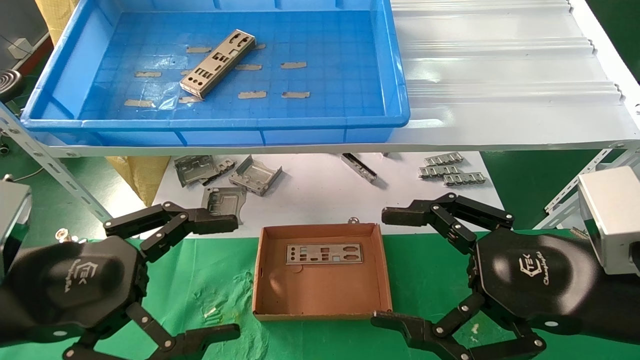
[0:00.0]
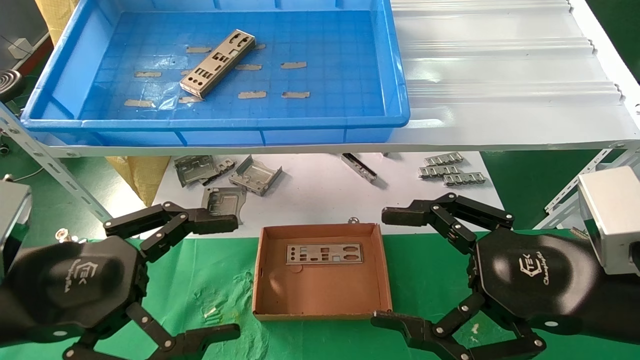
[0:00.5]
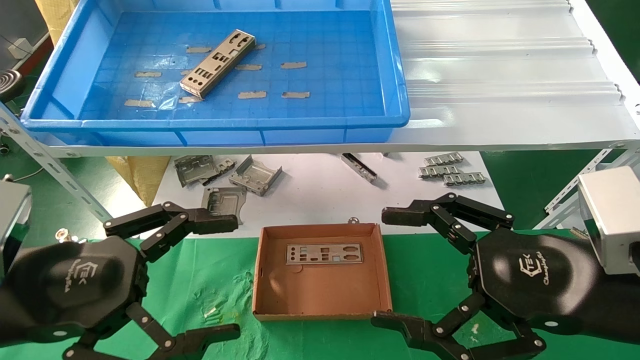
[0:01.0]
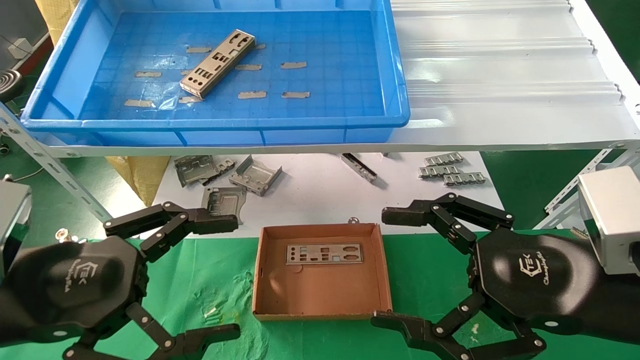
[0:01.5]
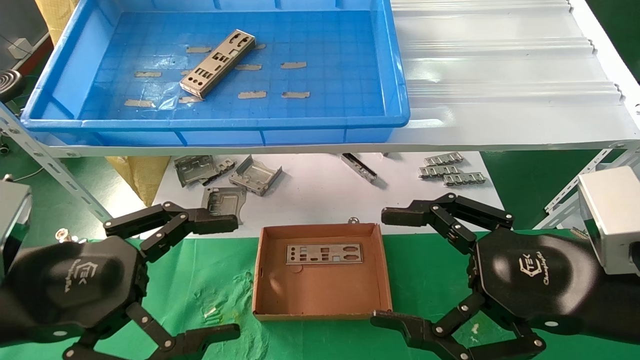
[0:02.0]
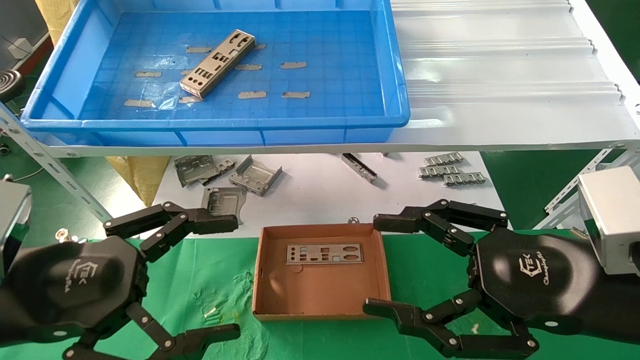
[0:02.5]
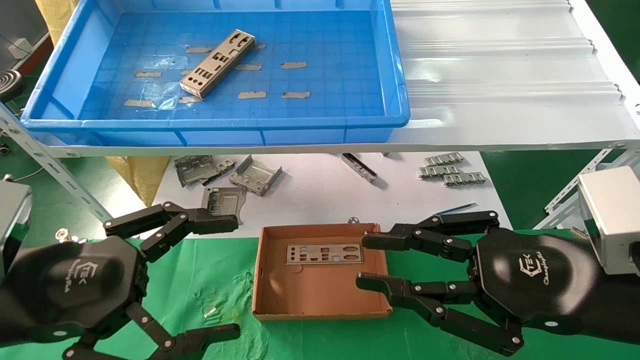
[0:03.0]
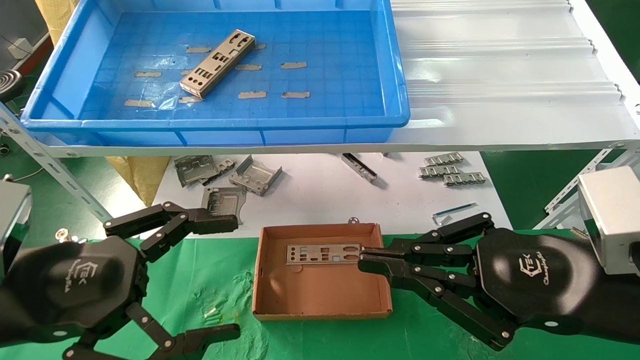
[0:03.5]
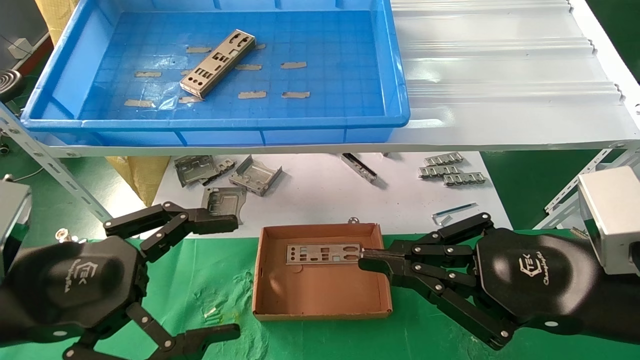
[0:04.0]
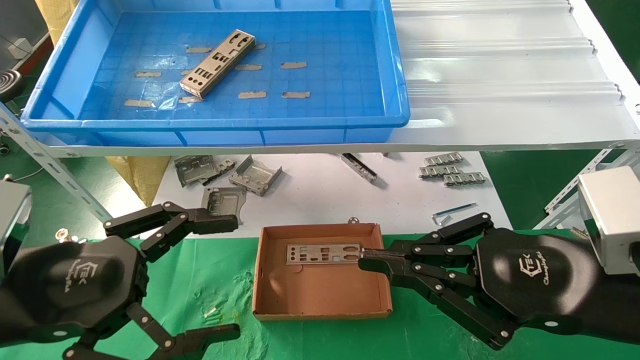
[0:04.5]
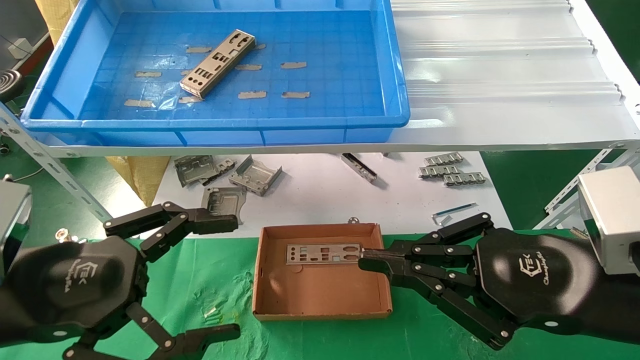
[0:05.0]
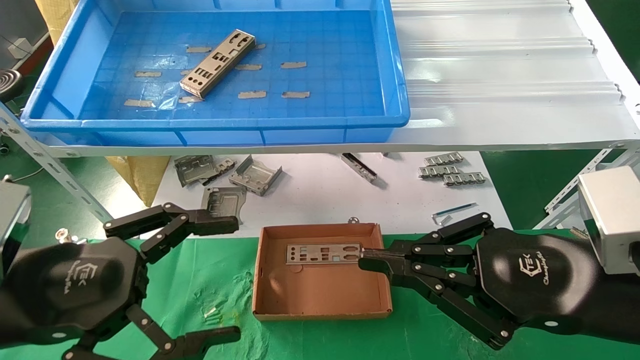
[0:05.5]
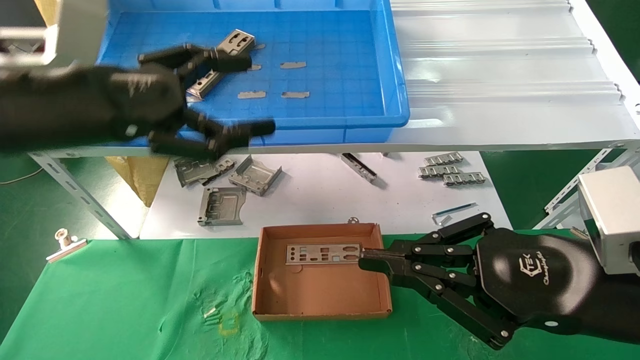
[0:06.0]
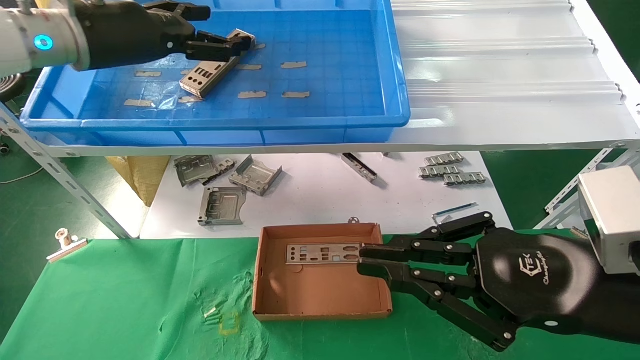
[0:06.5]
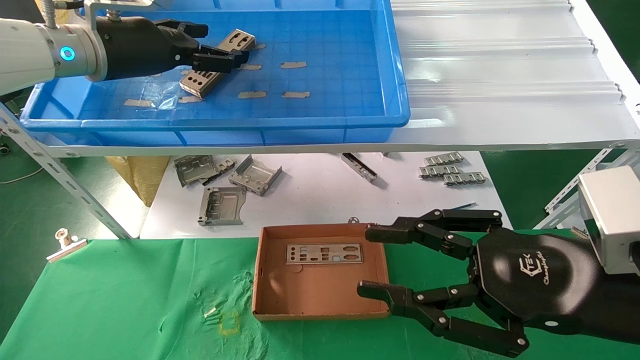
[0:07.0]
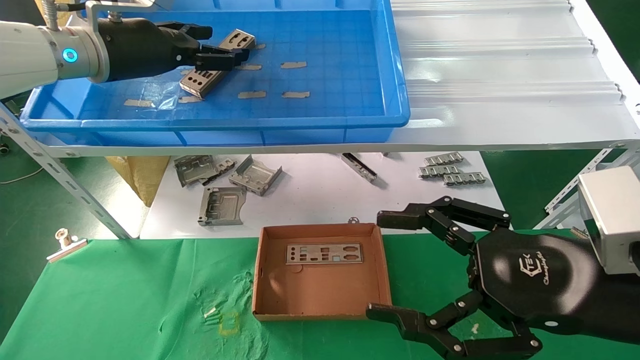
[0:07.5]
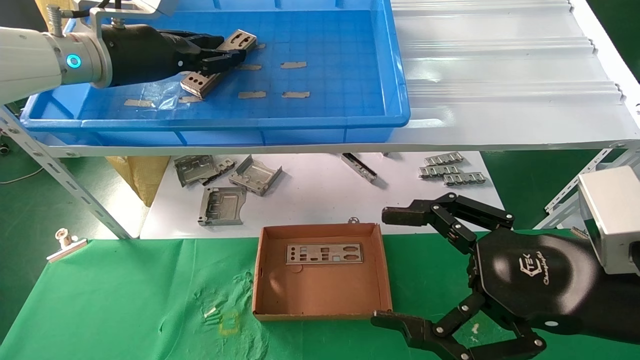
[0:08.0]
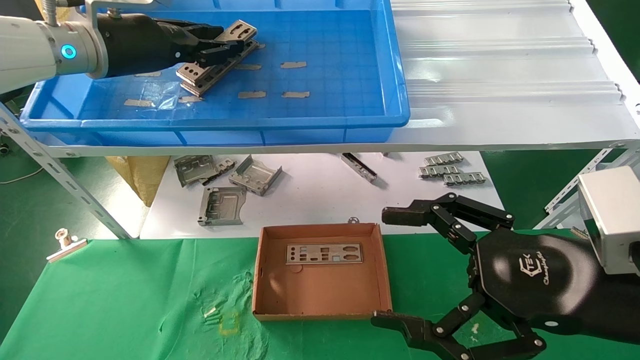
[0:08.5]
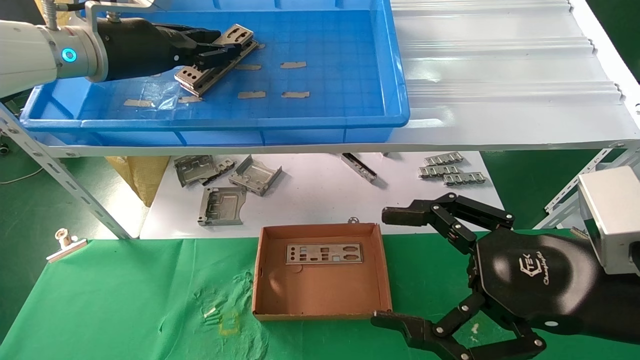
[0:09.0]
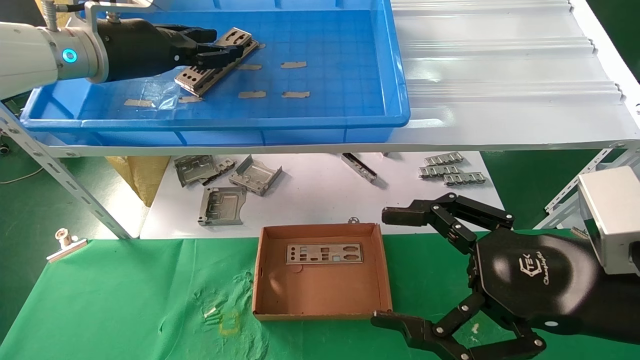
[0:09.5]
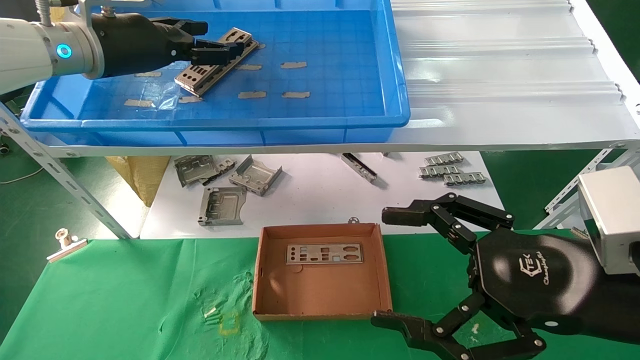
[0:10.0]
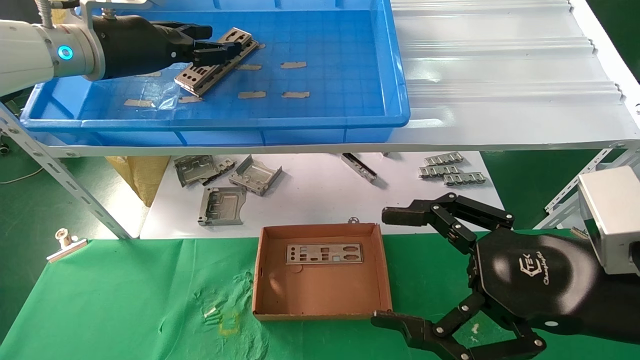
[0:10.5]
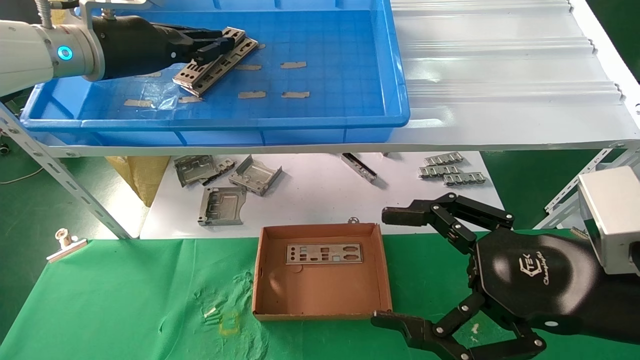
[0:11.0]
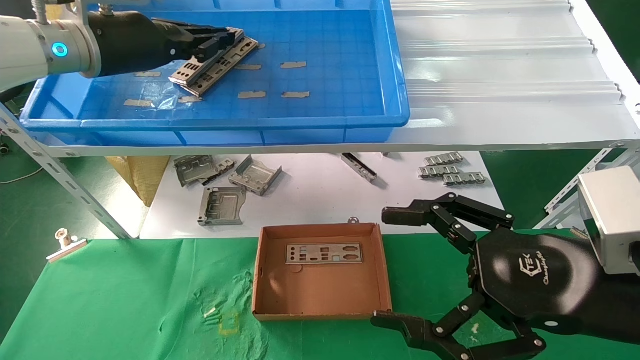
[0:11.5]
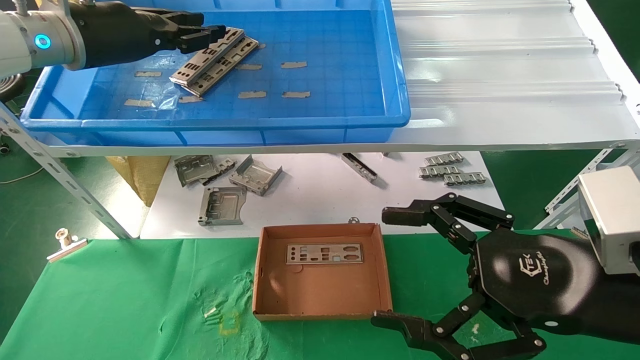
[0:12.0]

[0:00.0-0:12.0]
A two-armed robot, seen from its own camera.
Task of the whole recording: pick up the parts on the tray and put them in the cardboard box.
Step, 0:03.5 to 0:05.5: Pick up the IO bracket from the container box.
Step, 0:06.0 to 0:08.5: Place the IO bracket into the ingredient slot.
0:00.0 to 0:02.0: Neither gripper changes place.
0:02.0 to 0:04.0: The right gripper closes up.
0:04.0 to 0:06.0: The left gripper shifts approximately 15 cm upward and forward.
0:06.0 to 0:08.0: The left gripper travels forward by some 15 cm, and closes. Meanwhile the right gripper opens.
0:08.0 to 0:10.0: The two grippers keep their place.
0:10.0 to 0:12.0: The left gripper closes up.

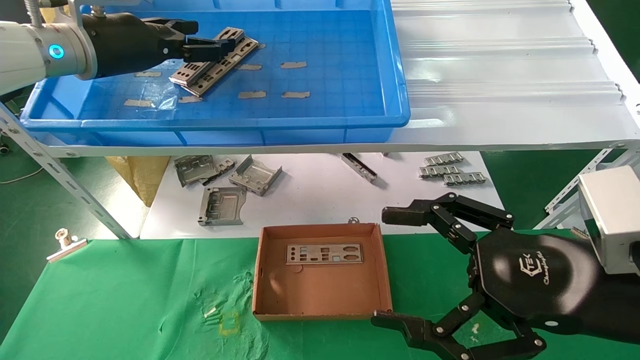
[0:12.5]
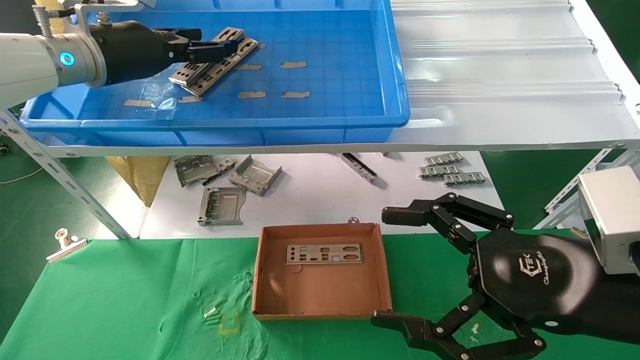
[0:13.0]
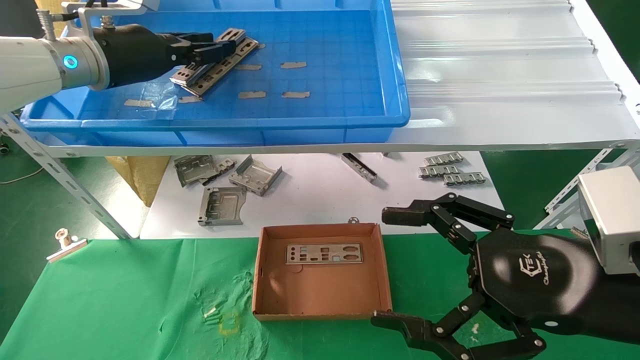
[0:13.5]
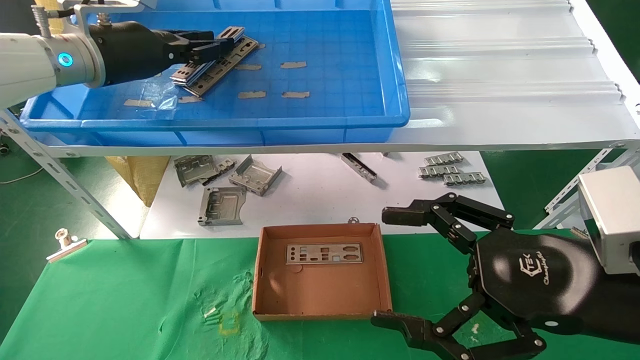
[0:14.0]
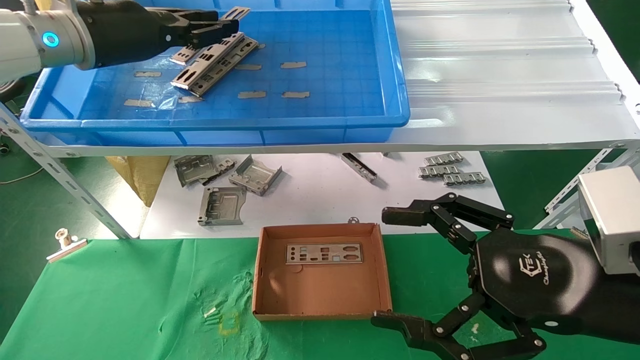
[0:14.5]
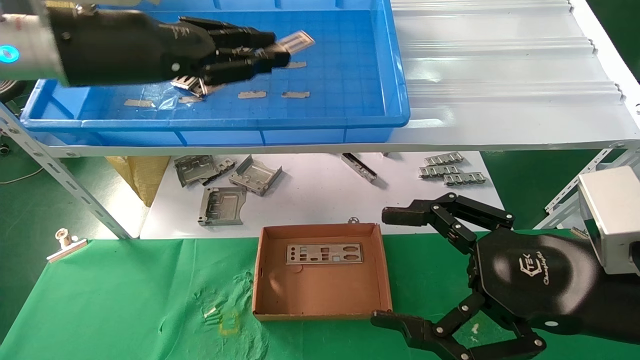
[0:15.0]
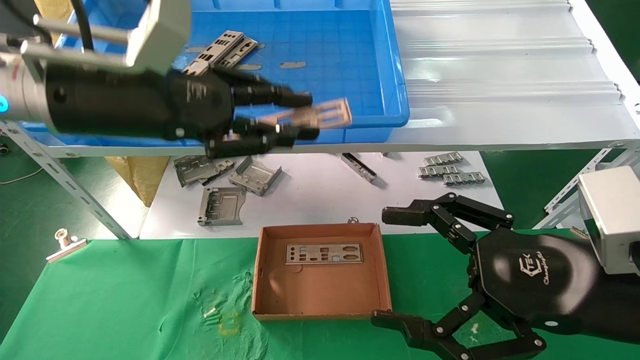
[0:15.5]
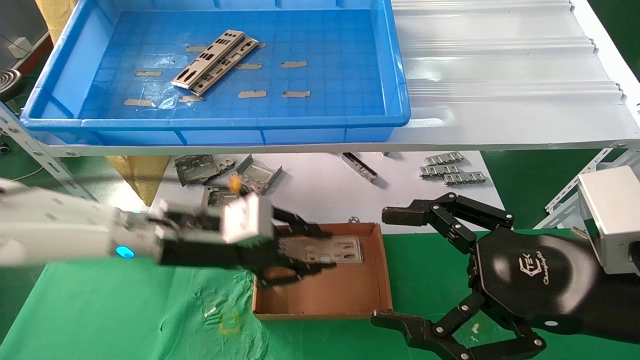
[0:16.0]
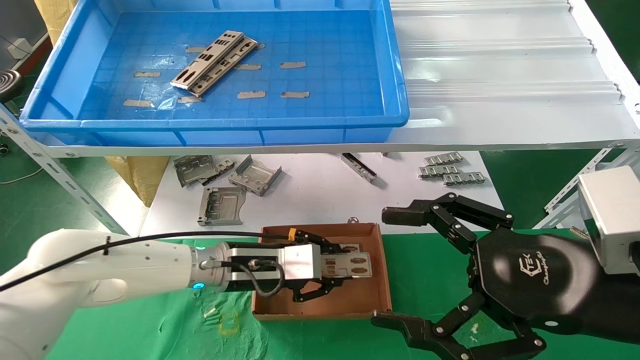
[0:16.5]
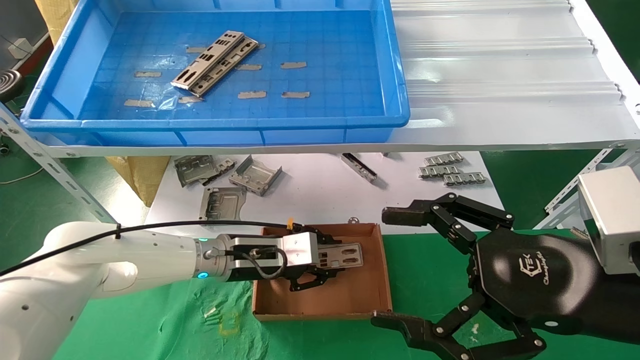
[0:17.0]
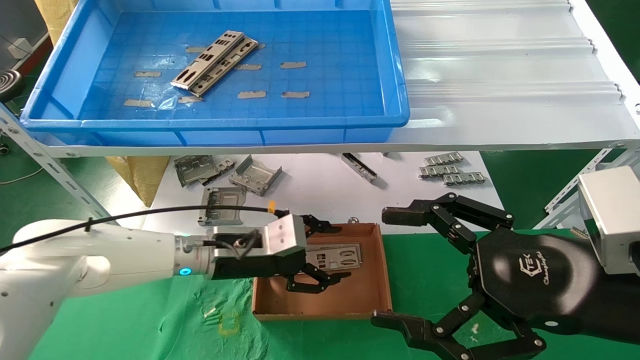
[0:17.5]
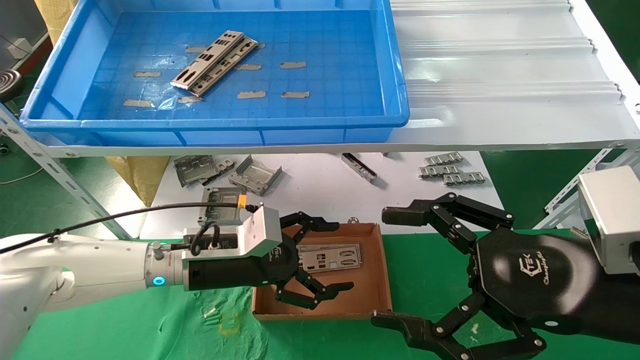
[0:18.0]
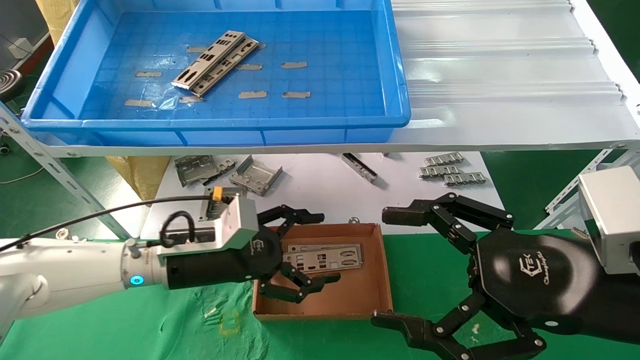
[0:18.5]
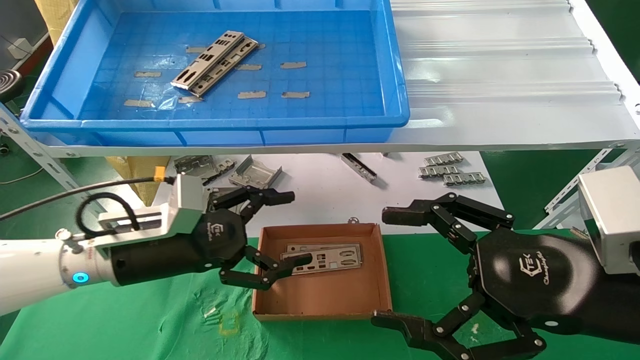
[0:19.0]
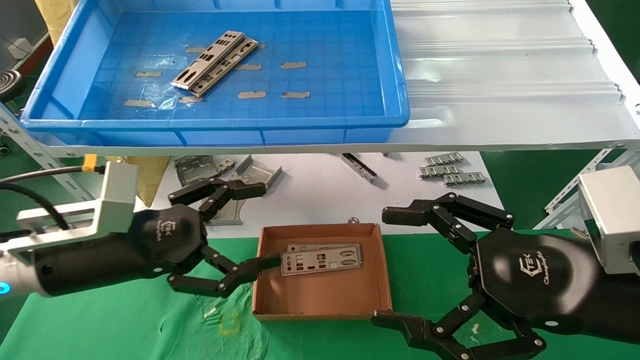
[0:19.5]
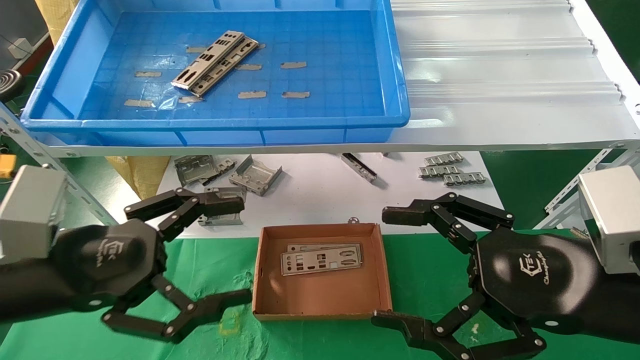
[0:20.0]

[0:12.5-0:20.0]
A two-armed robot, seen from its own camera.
Task of the whole recording: pick up the parts on the tray and put them in the cardboard box.
0:12.5 to 0:14.5: The left gripper closes up.
0:14.5 to 0:16.5: The left gripper moves downward and to the right, some 35 cm.
0:16.5 to 0:18.0: The left gripper opens its fingers.
0:18.0 to 0:20.0: The left gripper heads backward, to the left and upward, covering approximately 20 cm.
